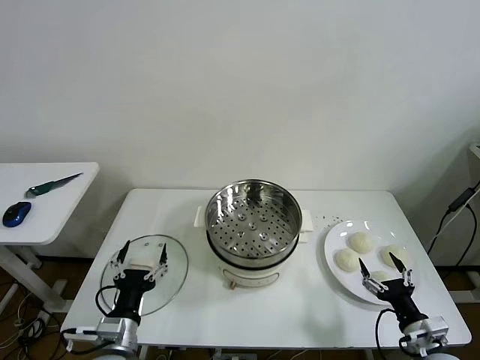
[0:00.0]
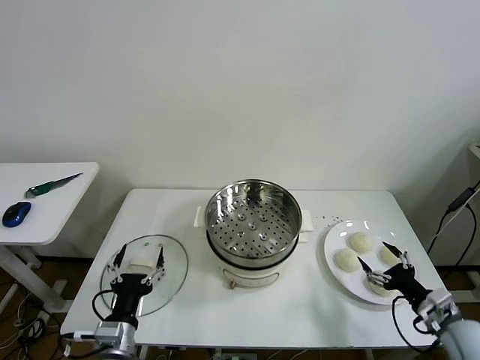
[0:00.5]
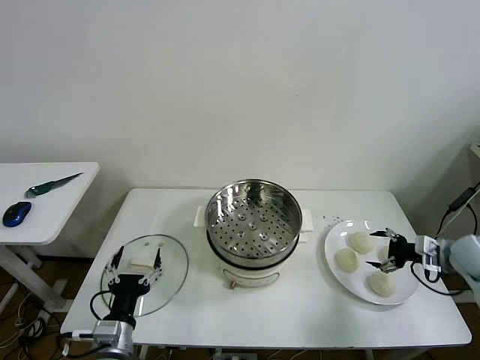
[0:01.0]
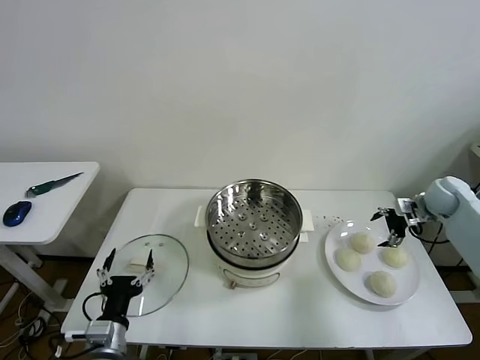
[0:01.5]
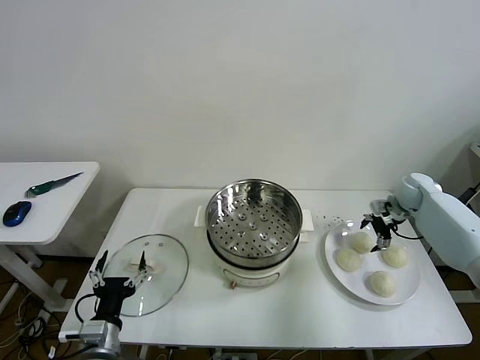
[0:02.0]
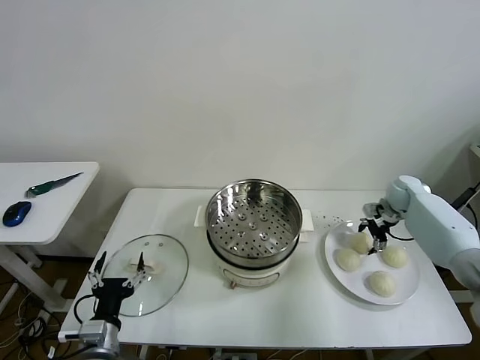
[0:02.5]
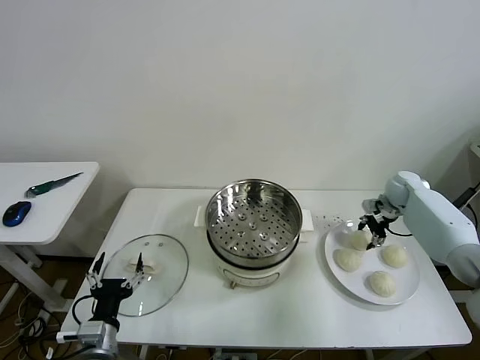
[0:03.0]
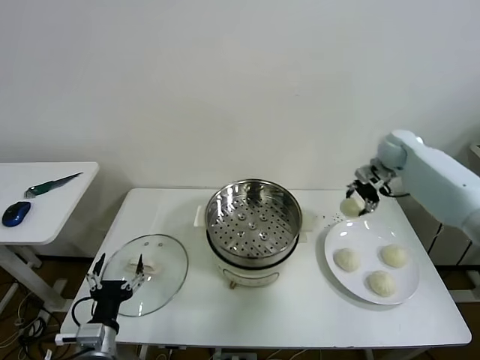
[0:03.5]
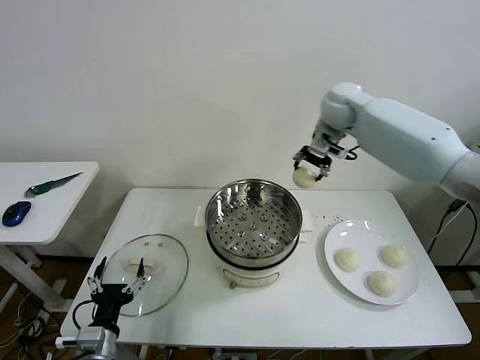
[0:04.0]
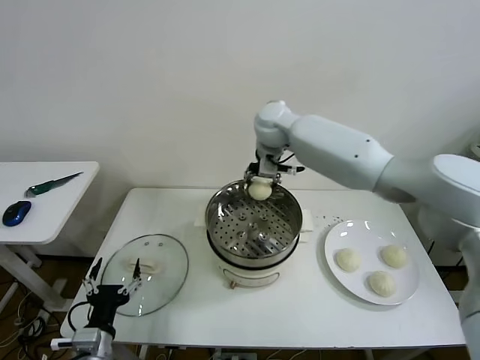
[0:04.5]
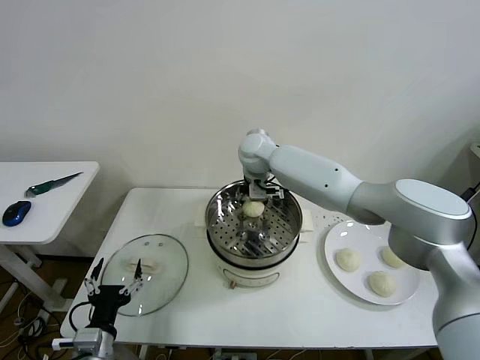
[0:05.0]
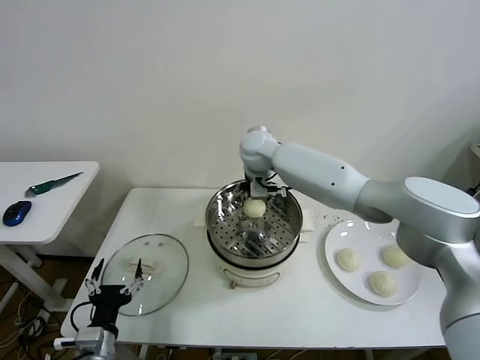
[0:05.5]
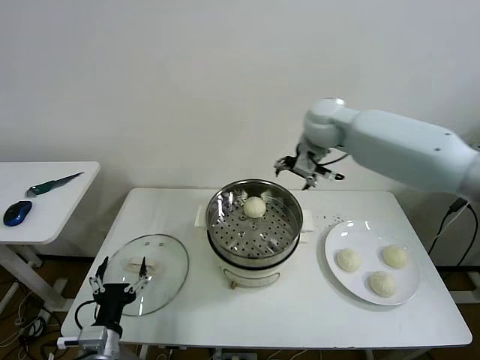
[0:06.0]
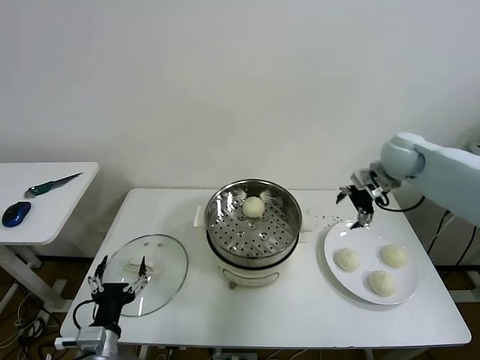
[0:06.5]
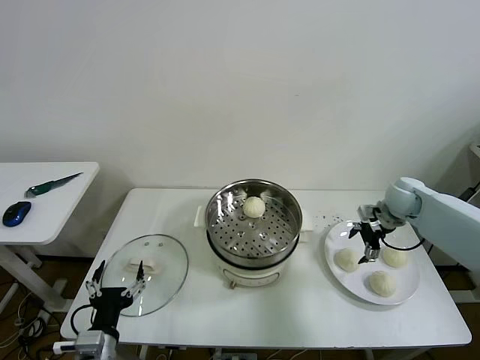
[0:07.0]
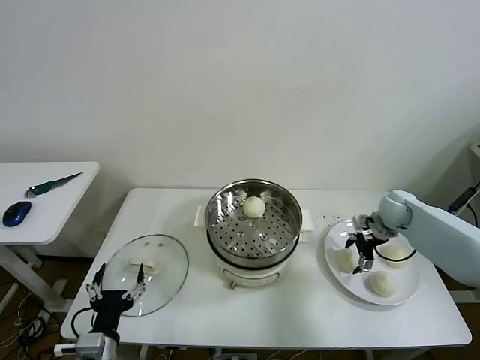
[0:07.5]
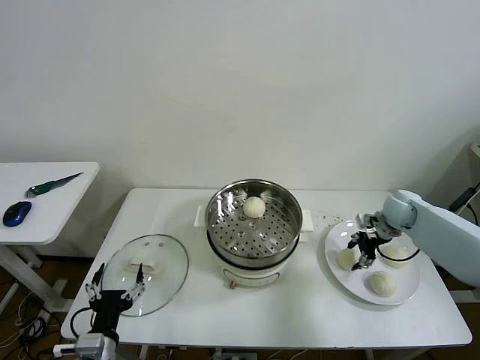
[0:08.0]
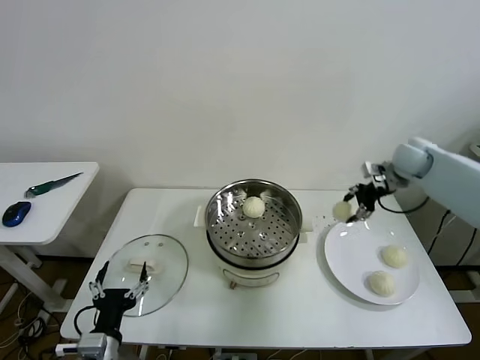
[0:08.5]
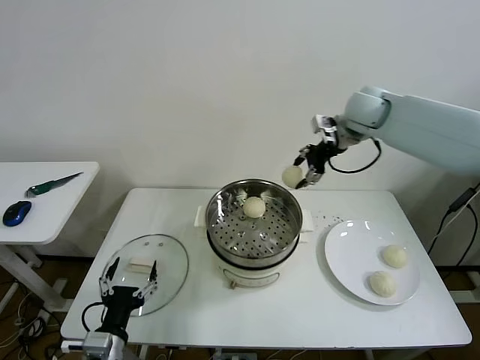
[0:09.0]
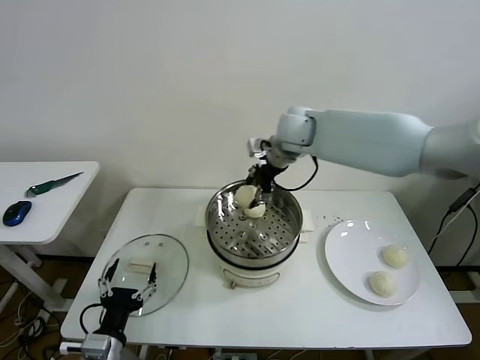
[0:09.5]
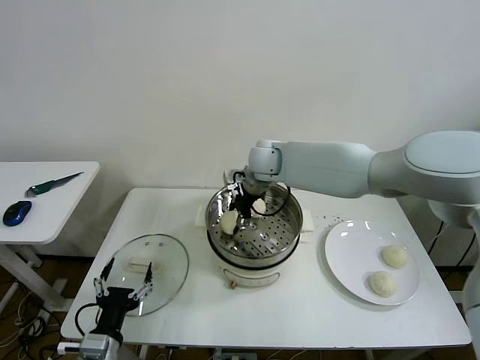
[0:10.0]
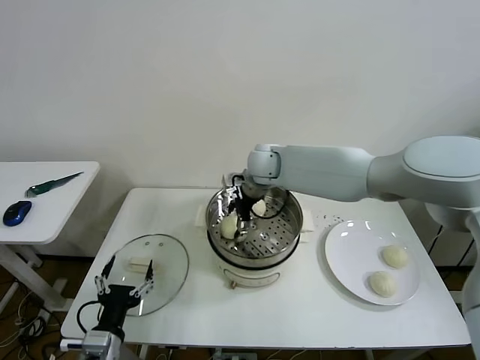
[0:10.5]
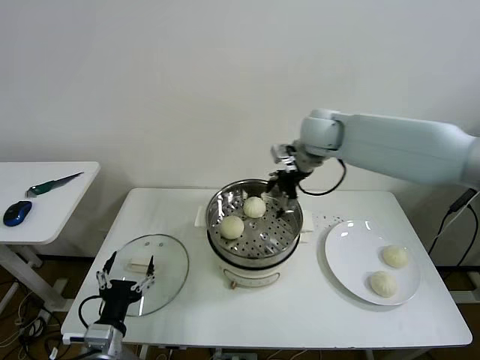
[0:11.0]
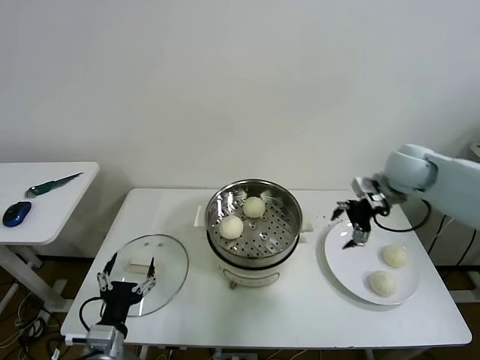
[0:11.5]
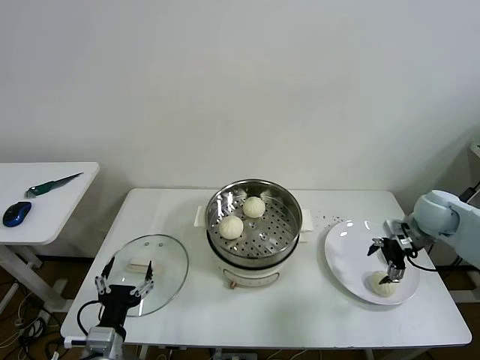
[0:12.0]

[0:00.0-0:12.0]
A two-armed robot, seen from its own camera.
Task of the whole recording: take steamed baozi put them in steamer then cover it.
Step, 0:00.0 to 0:02.5: Grasp the baozi in the plate with right gripper.
Step, 0:03.0 to 0:05.5: Place the baozi on the steamer with right gripper.
Step, 0:06.0 to 0:07.5: Grasp the baozi in the plate with right gripper.
Step, 0:08.0 to 0:10.5: Place the baozi on the steamer with right gripper.
0:02.0 to 0:04.0: The right gripper heads to the left and upward, covering about 35 cm, and closes up.
0:04.0 to 0:06.0: The right gripper moves backward, roughly 5 cm, reaches roughly 15 cm to the left, then returns, and opens up.
0:06.0 to 0:08.0: The right gripper heads downward and to the right, covering roughly 30 cm, and closes its fingers.
0:08.0 to 0:10.0: The right gripper is displaced to the left by about 35 cm.
0:10.0 to 0:12.0: The right gripper moves to the right, some 40 cm, and opens up.

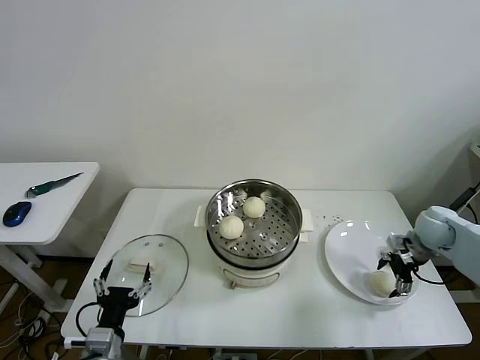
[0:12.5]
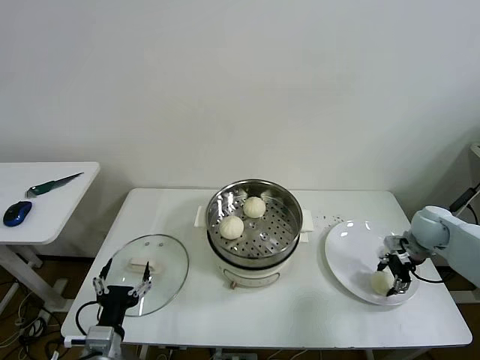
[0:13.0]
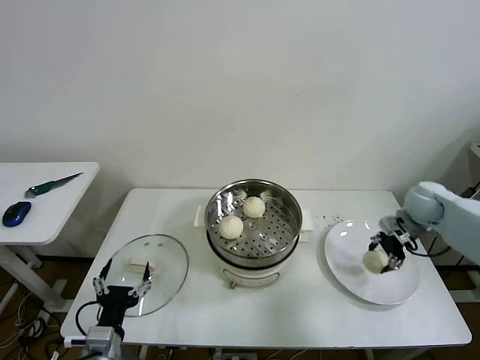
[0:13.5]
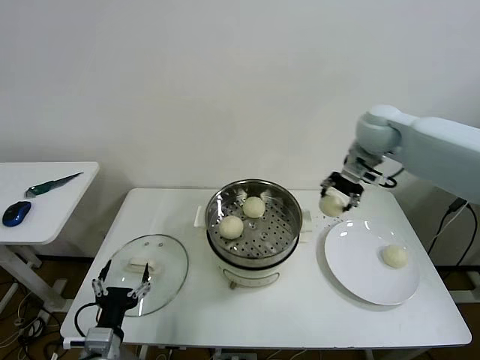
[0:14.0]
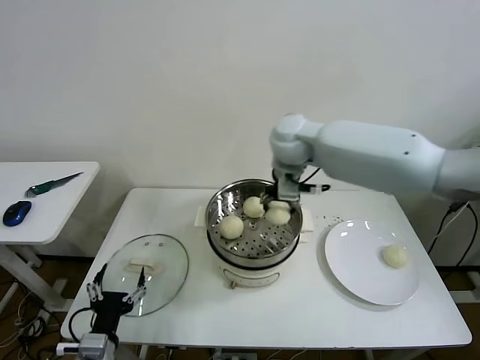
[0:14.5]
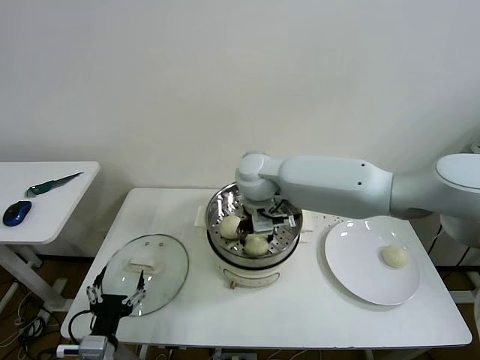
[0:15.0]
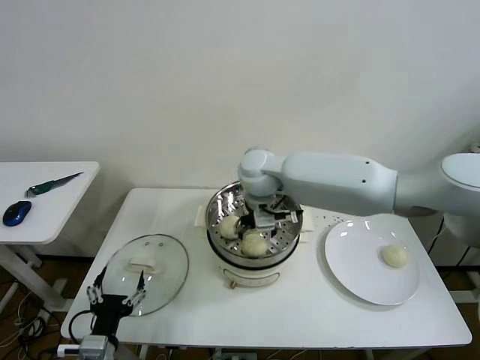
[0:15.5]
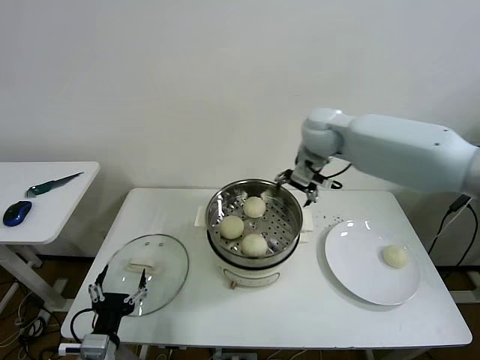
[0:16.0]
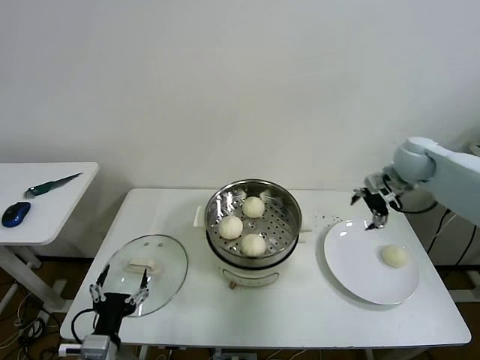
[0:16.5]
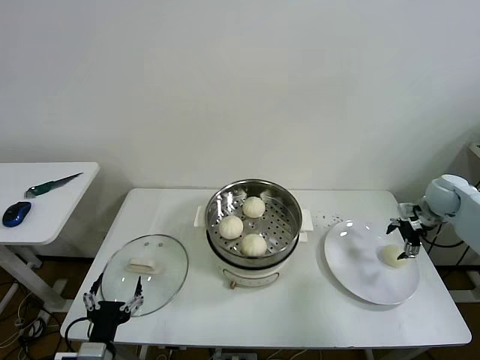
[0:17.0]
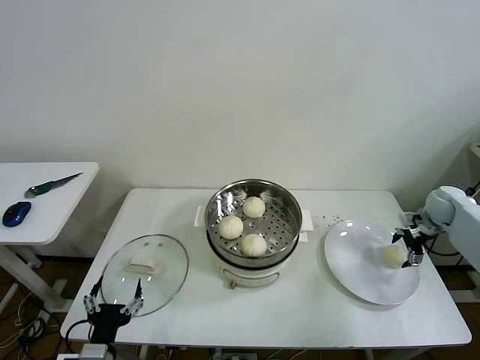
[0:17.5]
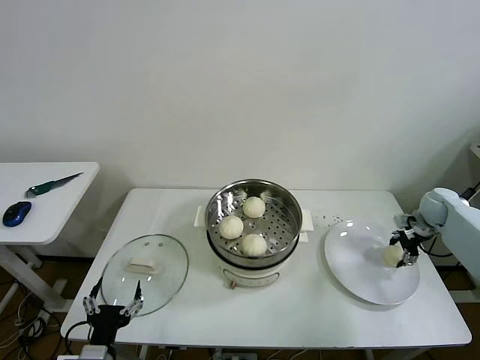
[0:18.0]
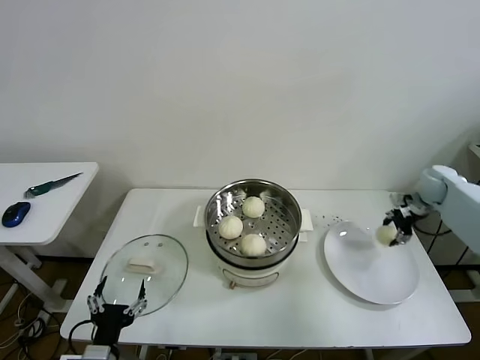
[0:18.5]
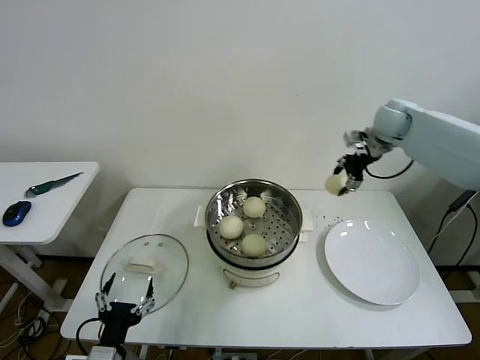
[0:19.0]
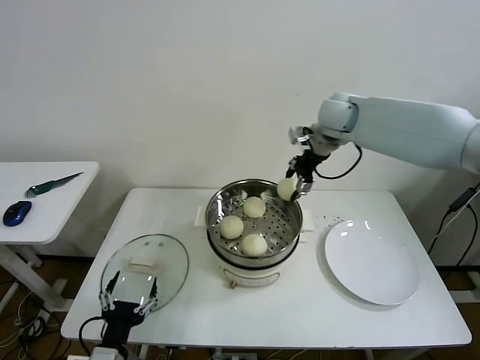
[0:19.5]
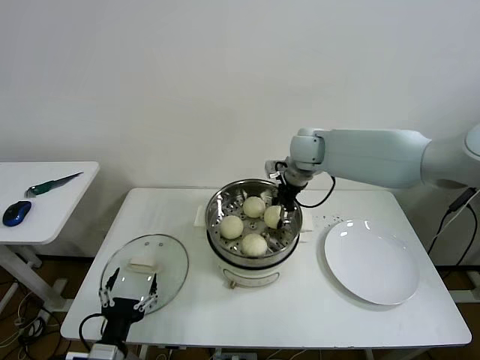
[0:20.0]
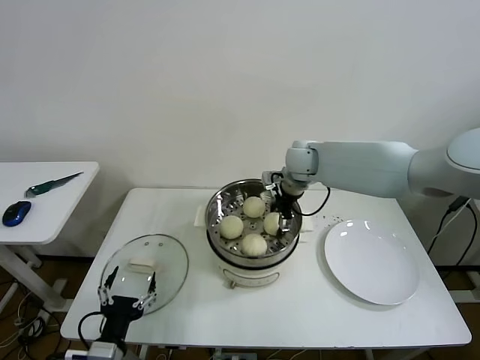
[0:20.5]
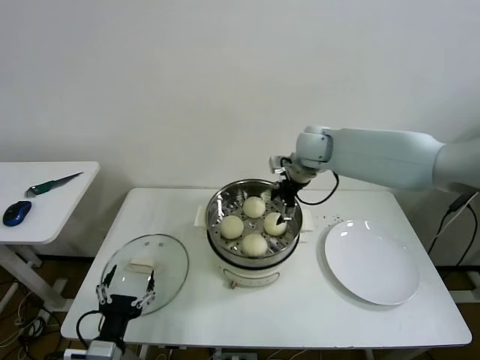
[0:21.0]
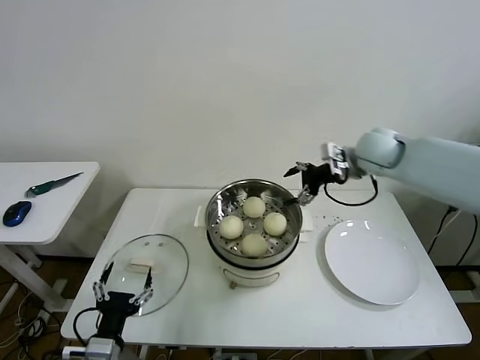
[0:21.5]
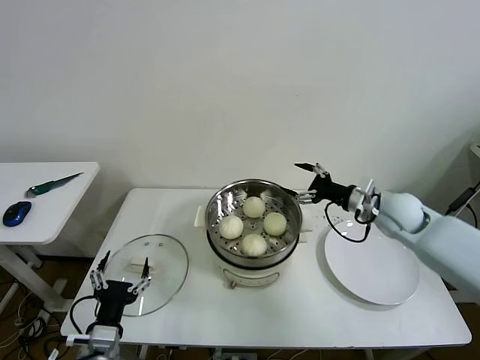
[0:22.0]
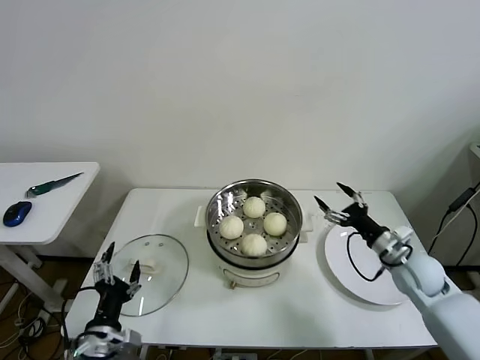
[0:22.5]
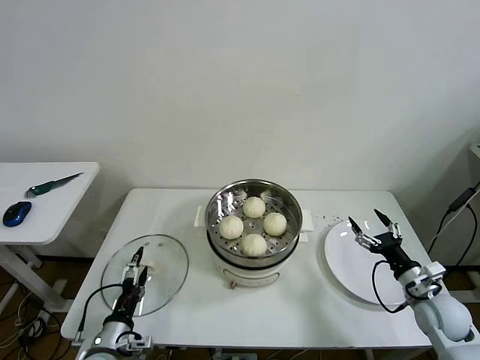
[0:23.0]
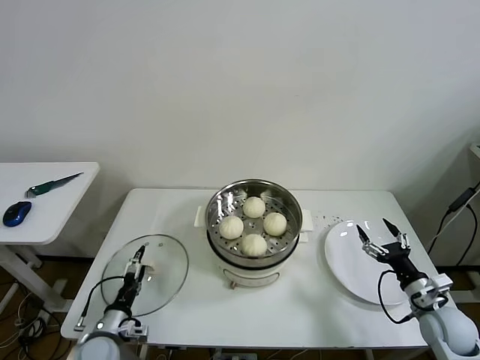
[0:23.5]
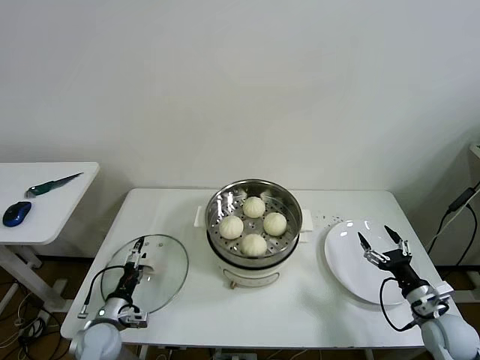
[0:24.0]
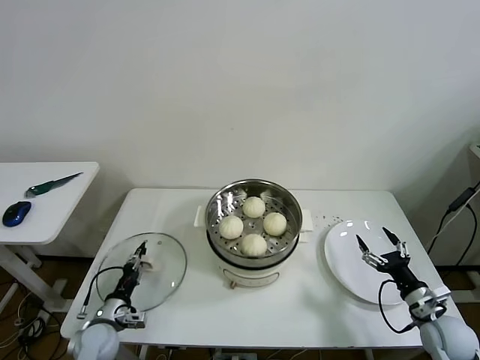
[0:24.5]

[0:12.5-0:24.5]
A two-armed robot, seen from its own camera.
Task of the whole recording: take steamed baozi put them in steamer then cover it.
Step, 0:13.5 to 0:15.0: Place the baozi on the steamer with right gripper.
Step, 0:15.5 to 0:17.5: Grasp the baozi in the plate with right gripper.
Step, 0:18.0 to 0:20.5: Place the baozi on the steamer with right gripper.
0:12.5 to 0:14.5: The right gripper goes some 40 cm to the left and upward, and closes.
0:14.5 to 0:16.5: The right gripper moves to the right, approximately 30 cm, and opens up.
0:16.5 to 0:18.5: The right gripper shifts about 15 cm to the right and downward, and closes up.
0:18.5 to 0:20.5: The right gripper shifts approximately 35 cm to the left, and opens its fingers.
0:20.5 to 0:22.5: The right gripper goes some 35 cm to the right, backward and downward.
0:22.5 to 0:24.5: The left gripper moves downward, forward and to the left, about 20 cm, and closes up; the right gripper heads backward, downward and to the right, covering about 15 cm.

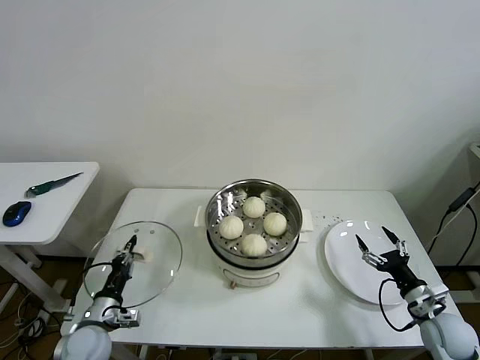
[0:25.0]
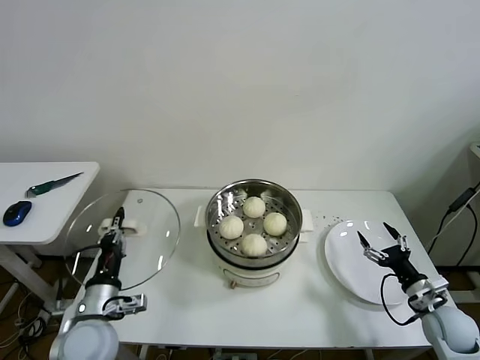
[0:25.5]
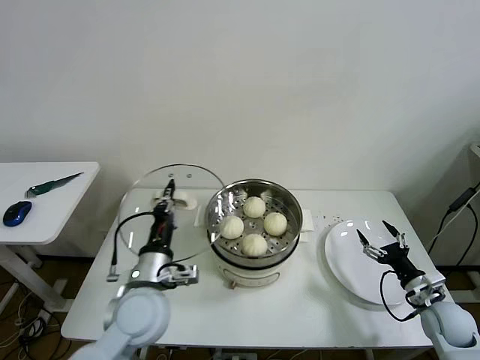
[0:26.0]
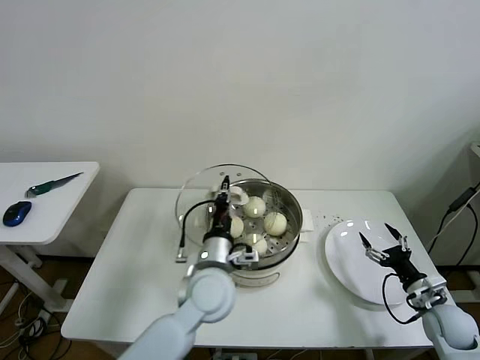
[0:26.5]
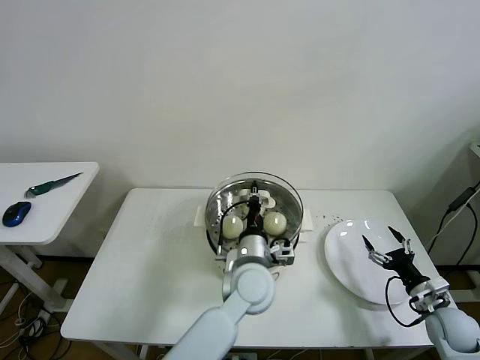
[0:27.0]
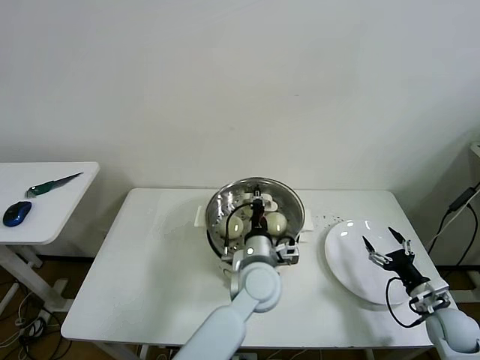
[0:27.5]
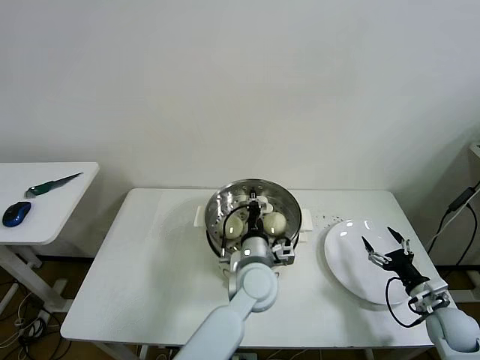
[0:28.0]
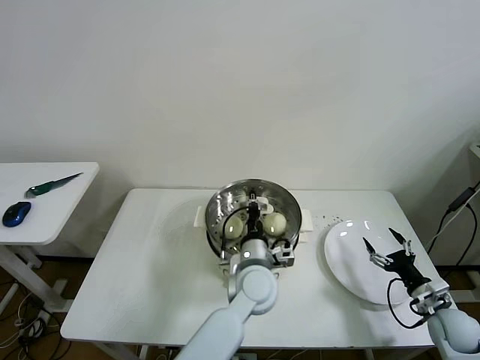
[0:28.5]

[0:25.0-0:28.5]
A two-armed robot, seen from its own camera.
Task of the whole recording: take steamed baozi put them in steamer then cover it.
0:25.0 to 0:27.0: The left gripper shifts approximately 40 cm to the right and upward.
0:27.0 to 0:28.5: There are only small adjustments of the grippers.
